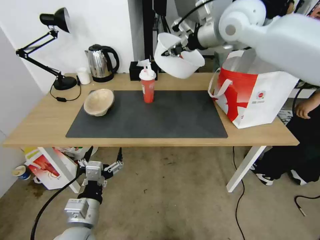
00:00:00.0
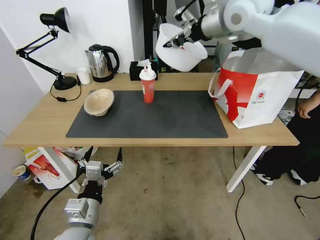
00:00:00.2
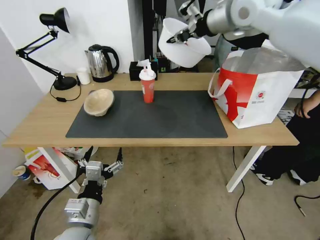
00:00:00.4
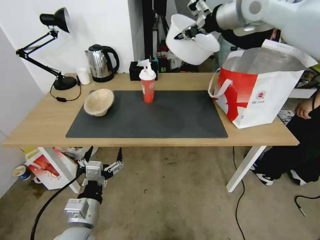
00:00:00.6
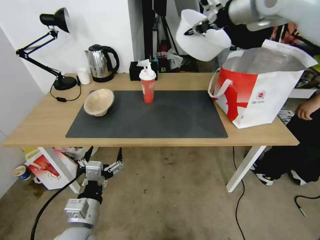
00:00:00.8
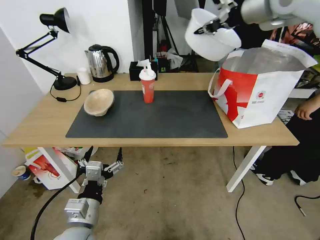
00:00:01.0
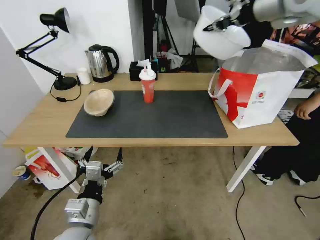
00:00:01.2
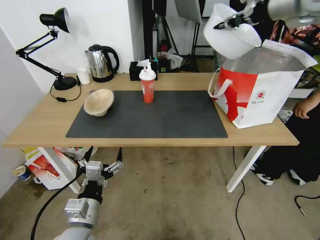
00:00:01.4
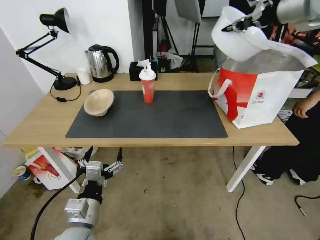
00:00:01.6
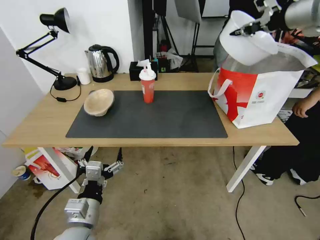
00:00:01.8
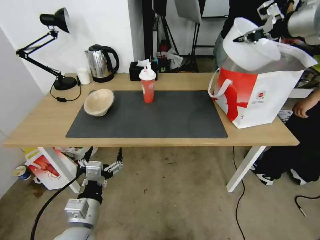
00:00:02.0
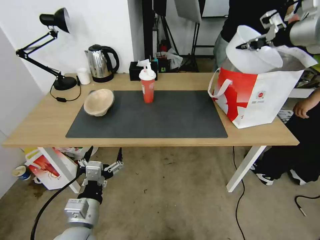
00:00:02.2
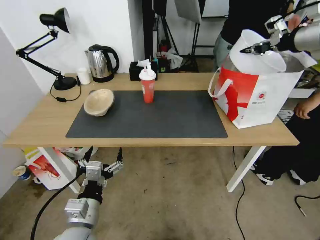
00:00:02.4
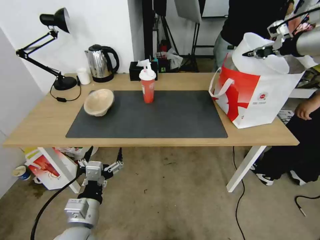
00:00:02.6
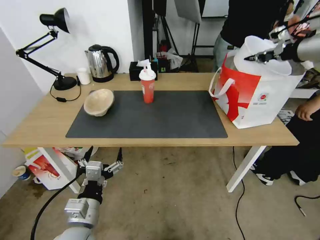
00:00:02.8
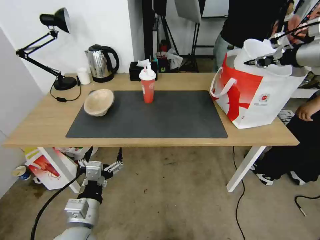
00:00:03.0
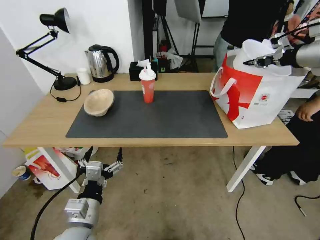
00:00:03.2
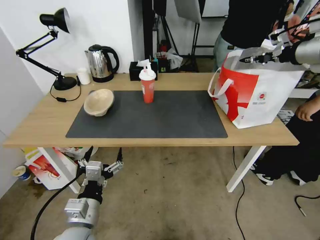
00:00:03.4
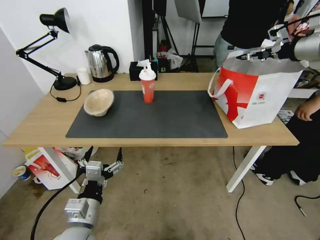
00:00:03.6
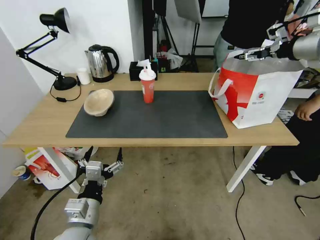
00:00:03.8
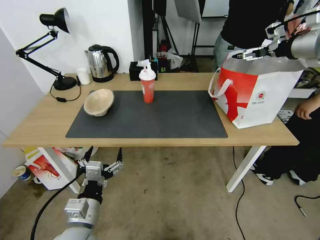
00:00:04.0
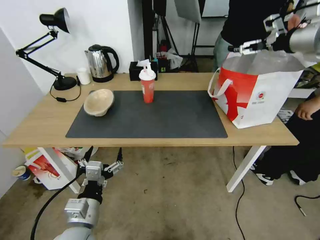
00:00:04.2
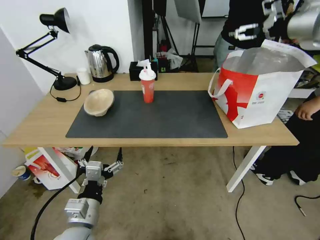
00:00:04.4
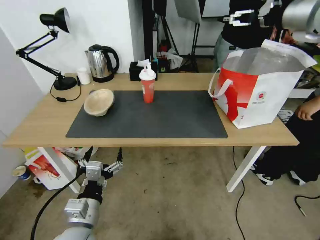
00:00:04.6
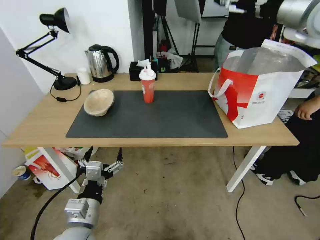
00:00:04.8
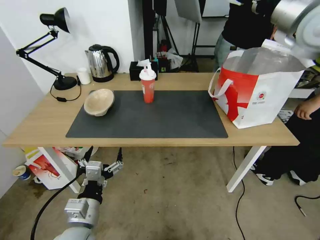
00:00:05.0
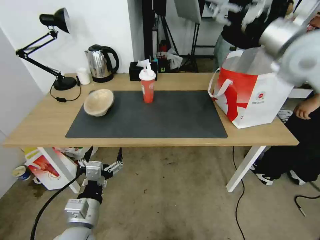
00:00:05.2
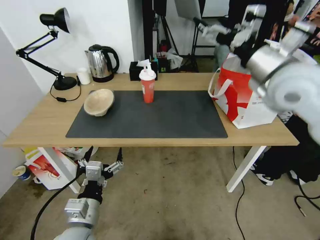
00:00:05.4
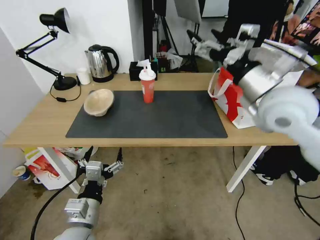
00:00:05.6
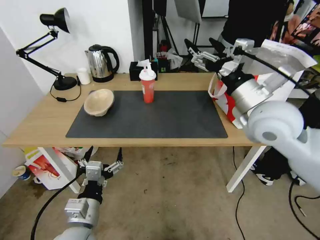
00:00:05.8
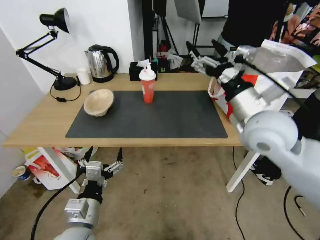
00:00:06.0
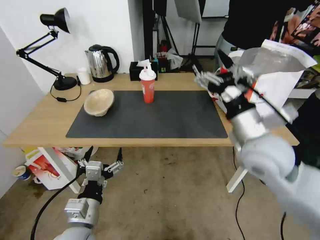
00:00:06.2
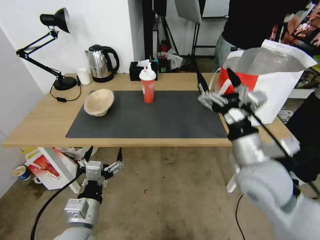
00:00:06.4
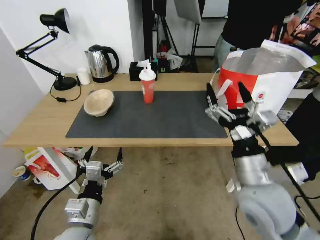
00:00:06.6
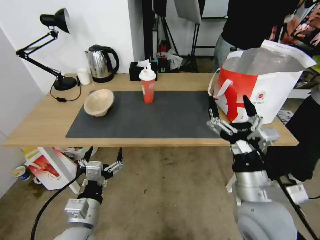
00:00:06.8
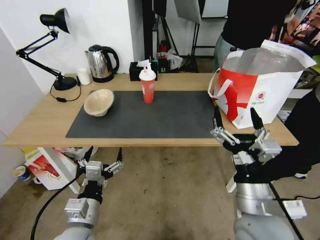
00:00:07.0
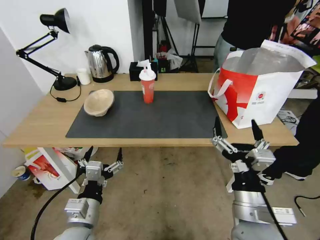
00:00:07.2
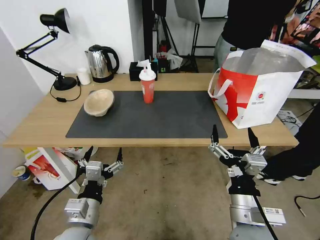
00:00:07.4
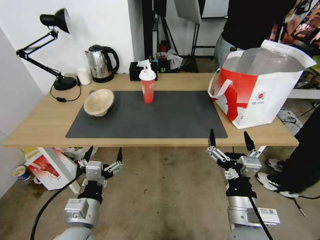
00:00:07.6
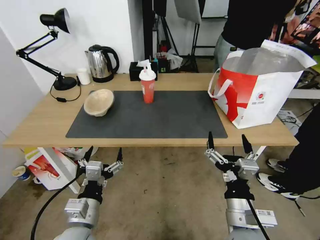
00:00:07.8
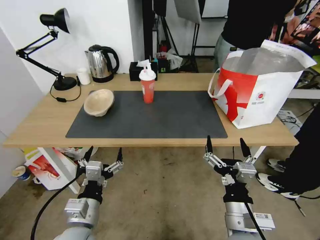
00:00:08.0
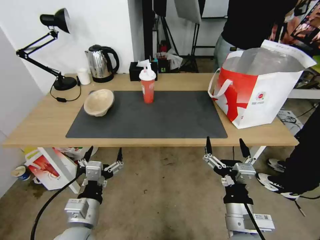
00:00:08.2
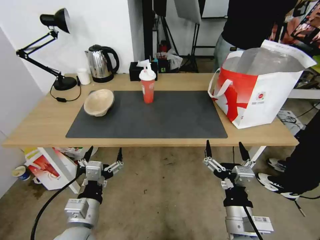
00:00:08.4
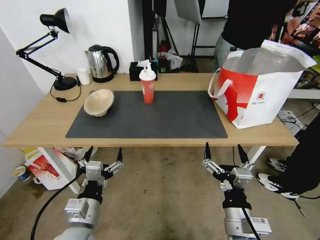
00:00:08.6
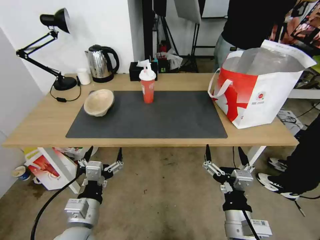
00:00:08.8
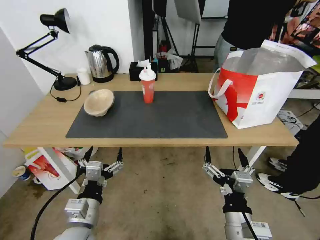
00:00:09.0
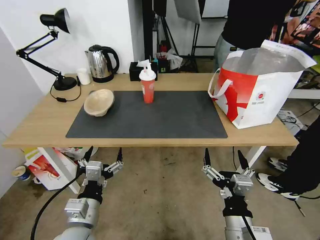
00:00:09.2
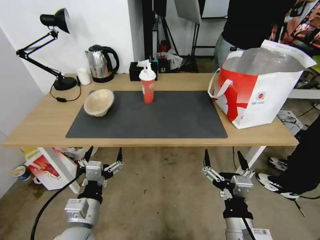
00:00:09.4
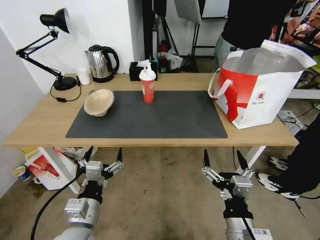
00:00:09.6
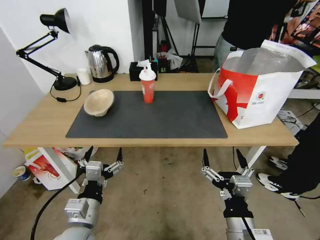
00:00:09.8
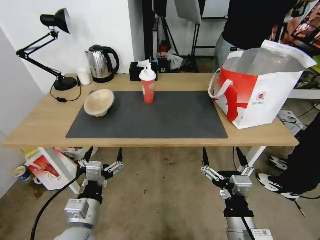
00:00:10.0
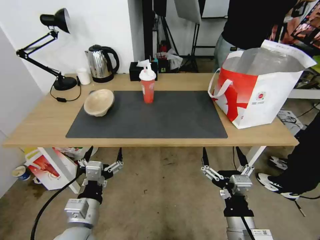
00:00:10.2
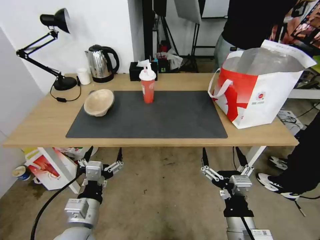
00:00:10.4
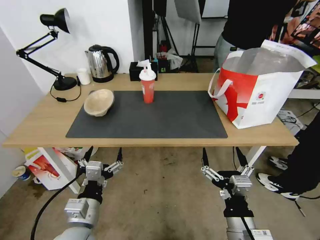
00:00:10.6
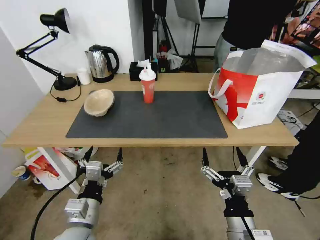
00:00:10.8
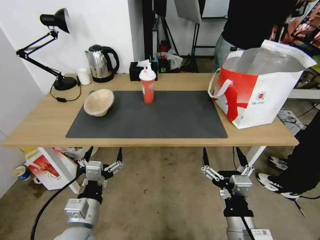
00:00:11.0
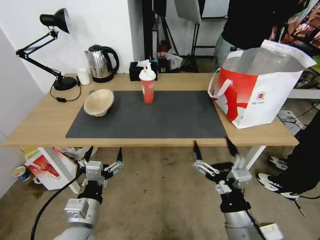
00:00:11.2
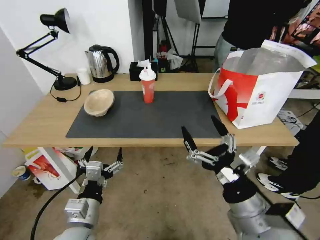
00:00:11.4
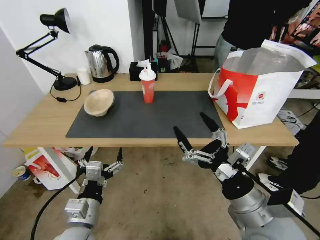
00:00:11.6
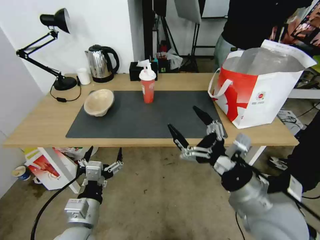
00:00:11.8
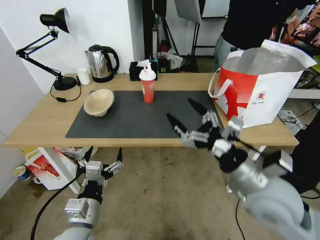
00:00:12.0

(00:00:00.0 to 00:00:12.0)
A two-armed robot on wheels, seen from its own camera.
Task of the whole recording: Pick up the trash from the table and place it into the takeout bag.
00:00:00.0 - 00:00:01.6: The right gripper shifts some 15 cm to the right.
00:00:01.6 - 00:00:03.0: The right gripper travels downward and to the right by some 15 cm.
00:00:03.0 - 00:00:04.4: The right gripper travels upward by approximately 5 cm, and opens its fingers.
00:00:04.4 - 00:00:06.0: The right gripper shifts about 30 cm downward, to the left and backward.
00:00:06.0 - 00:00:07.6: The right gripper is displaced backward and downward by some 25 cm.
00:00:07.6 - 00:00:10.4: There are only small adjustments of the grippers.
00:00:10.4 - 00:00:12.0: The right gripper travels upward and forward by approximately 15 cm.

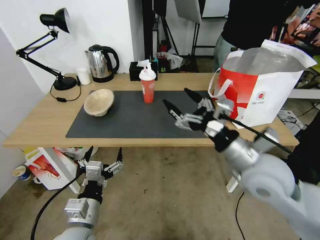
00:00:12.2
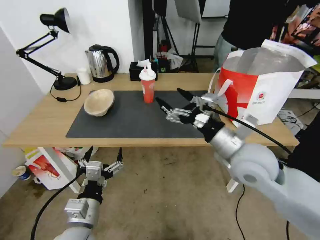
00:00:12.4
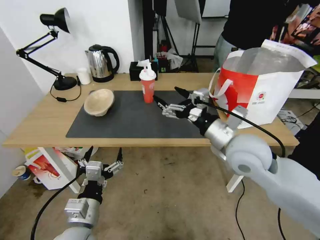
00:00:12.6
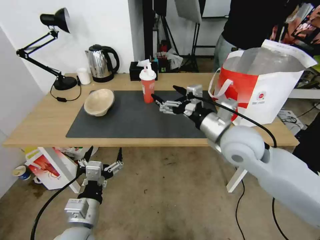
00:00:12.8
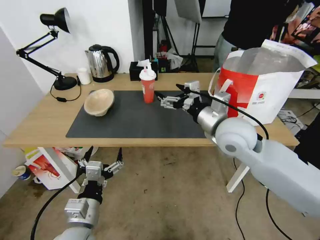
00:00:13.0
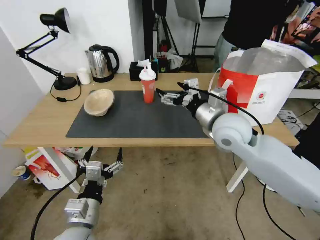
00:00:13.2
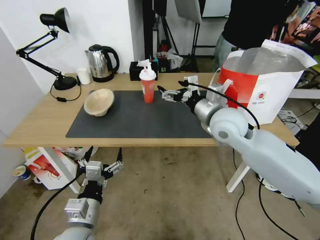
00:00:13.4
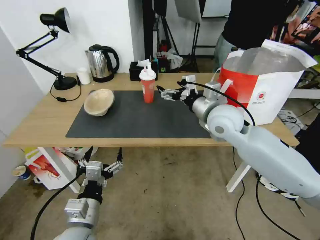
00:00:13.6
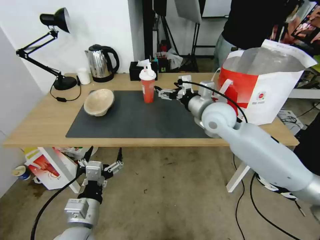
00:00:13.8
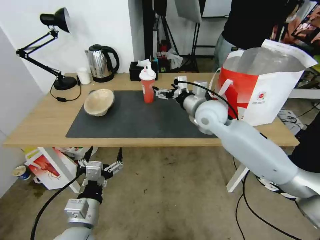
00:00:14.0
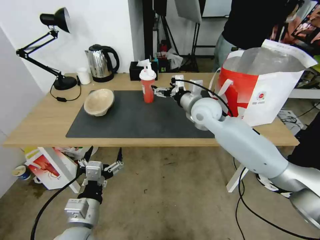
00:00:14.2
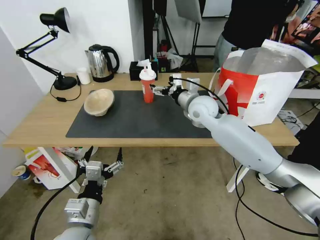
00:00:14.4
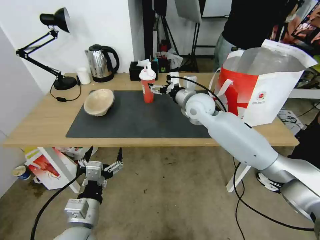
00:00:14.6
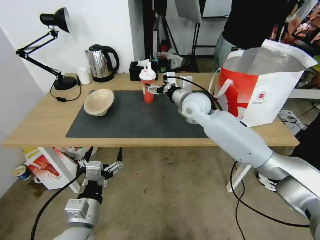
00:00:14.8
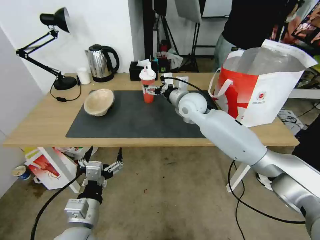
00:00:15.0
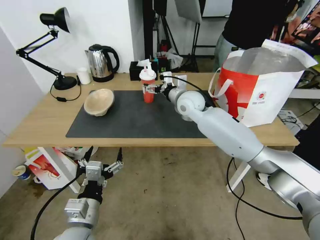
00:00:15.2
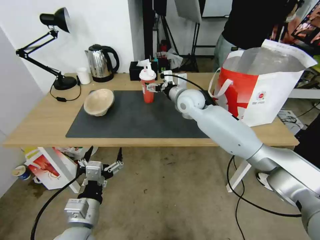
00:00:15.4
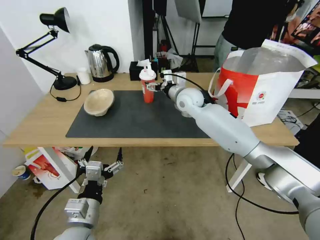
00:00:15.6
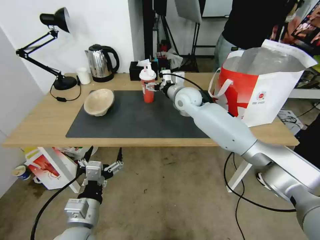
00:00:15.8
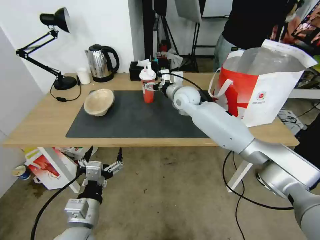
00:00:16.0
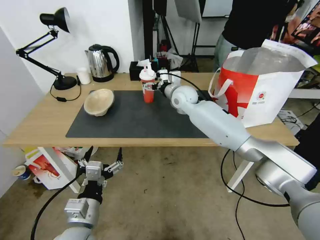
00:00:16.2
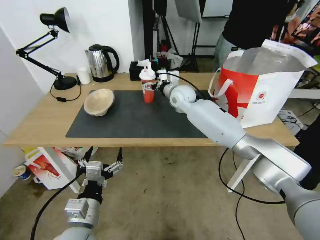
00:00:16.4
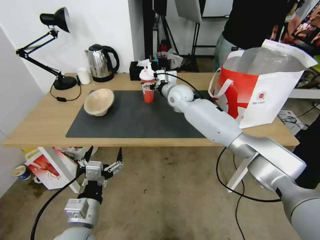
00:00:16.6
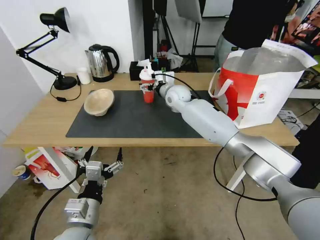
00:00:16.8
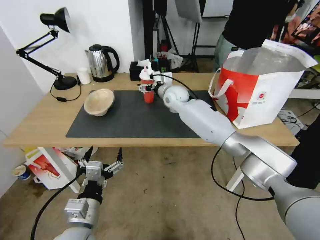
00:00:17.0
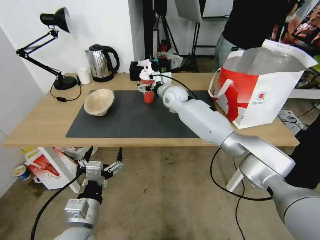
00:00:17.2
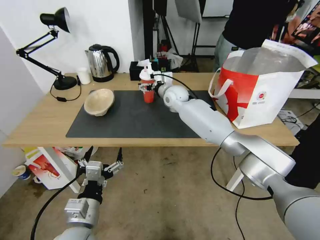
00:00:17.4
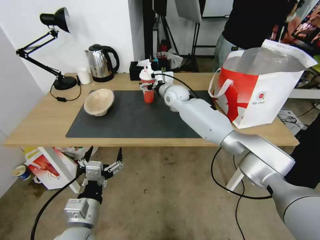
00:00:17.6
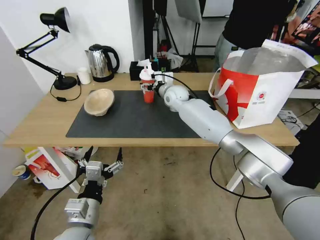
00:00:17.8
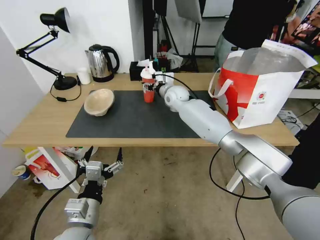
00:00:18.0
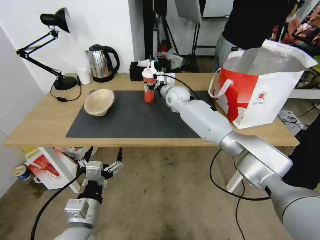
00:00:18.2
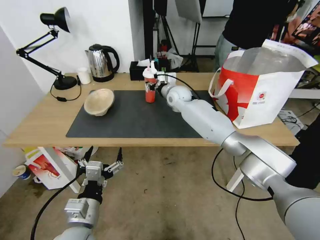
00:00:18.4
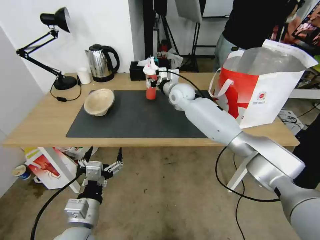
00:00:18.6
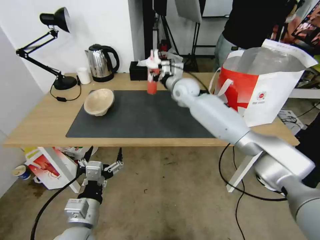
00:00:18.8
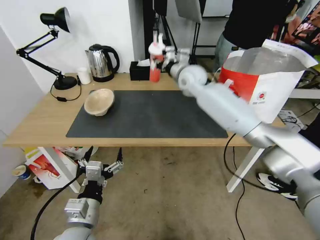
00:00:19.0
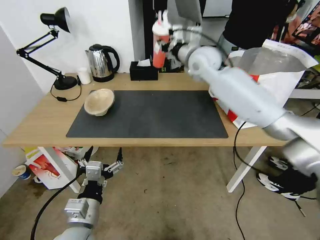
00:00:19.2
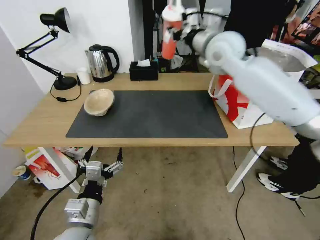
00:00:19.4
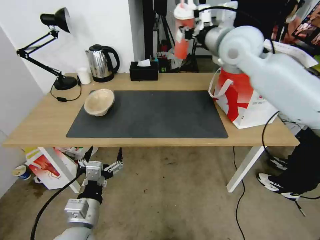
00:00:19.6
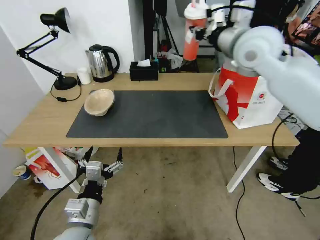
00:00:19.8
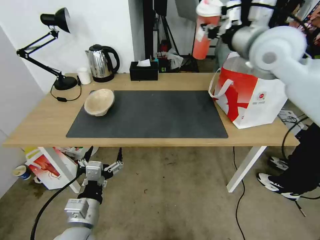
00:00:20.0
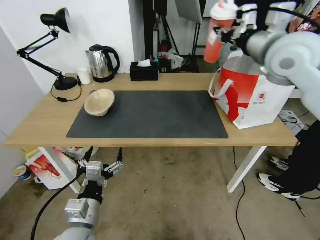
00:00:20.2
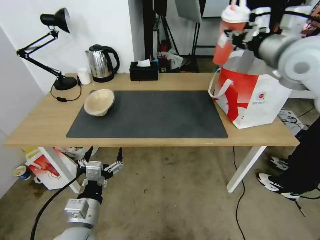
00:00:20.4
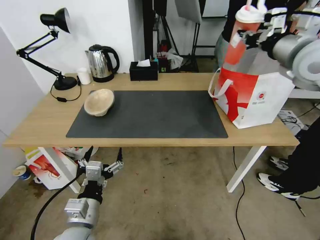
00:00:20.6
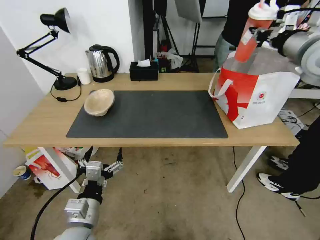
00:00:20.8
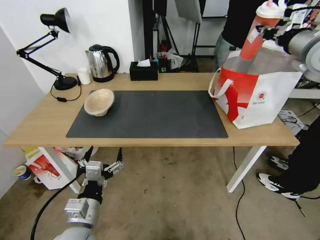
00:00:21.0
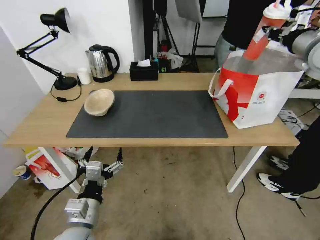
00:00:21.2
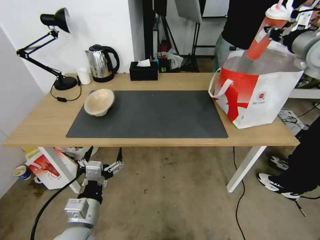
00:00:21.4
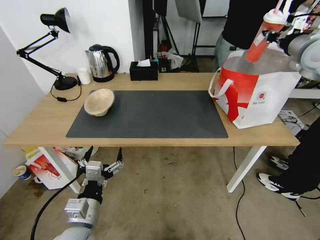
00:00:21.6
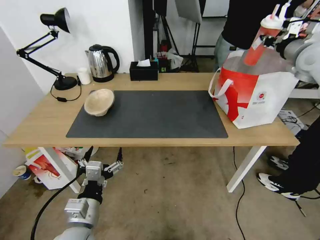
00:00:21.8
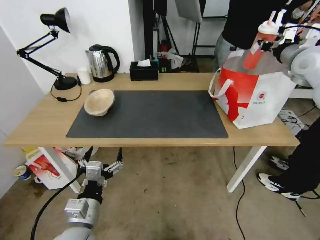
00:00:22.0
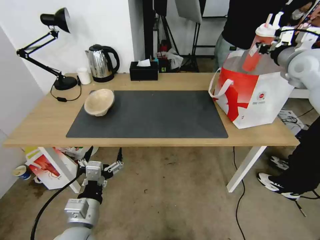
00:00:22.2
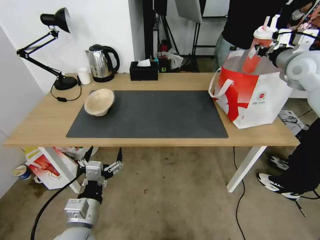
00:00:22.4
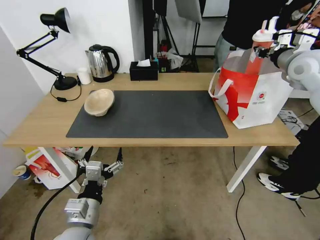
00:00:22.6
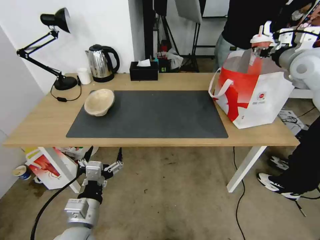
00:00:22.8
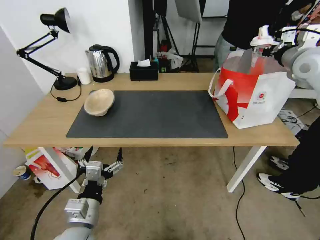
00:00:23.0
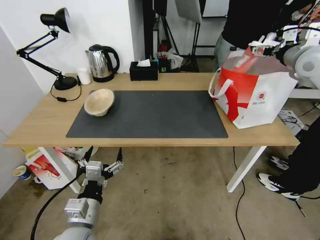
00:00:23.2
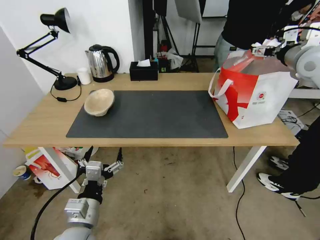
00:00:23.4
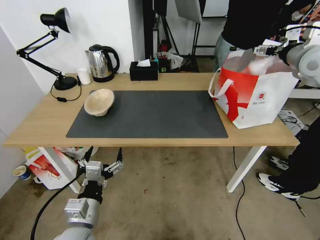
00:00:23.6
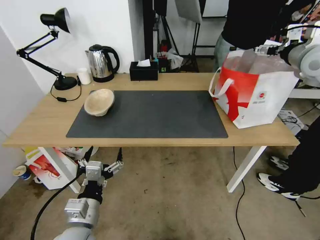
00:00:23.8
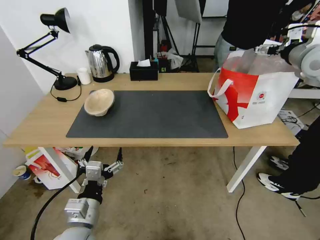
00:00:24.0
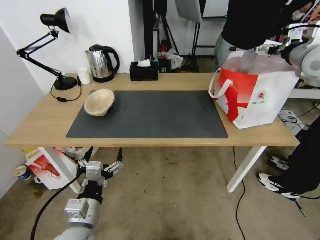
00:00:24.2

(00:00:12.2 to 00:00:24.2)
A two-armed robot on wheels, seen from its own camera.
Task of the whole recording: Pick up the trash from the table and place it into the takeout bag.
00:00:12.2 - 00:00:13.8: The right gripper travels forward by about 15 cm.
00:00:13.8 - 00:00:15.2: The right gripper travels forward and to the left by roughly 10 cm.
00:00:15.2 - 00:00:16.6: The right gripper shifts some 5 cm forward.
00:00:16.6 - 00:00:18.2: The right gripper closes up.
00:00:18.2 - 00:00:19.8: The right gripper shifts roughly 30 cm upward, to the right and backward, and closes up.
00:00:19.8 - 00:00:21.2: The right gripper moves to the right, approximately 20 cm.
00:00:21.2 - 00:00:22.6: The right gripper is displaced downward by approximately 5 cm.
00:00:22.6 - 00:00:24.2: The right gripper opens.
